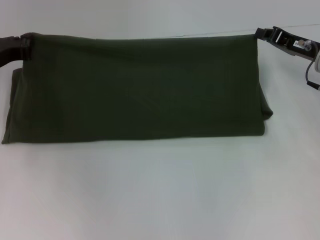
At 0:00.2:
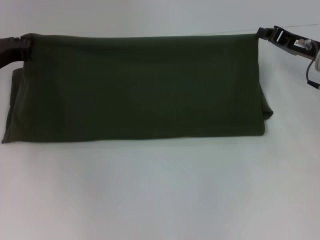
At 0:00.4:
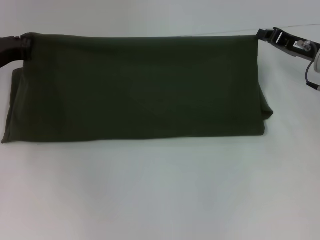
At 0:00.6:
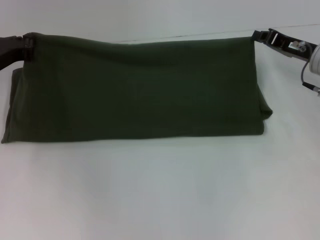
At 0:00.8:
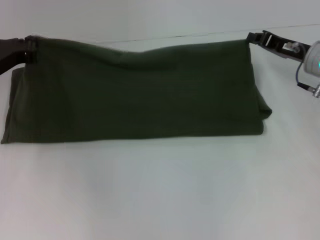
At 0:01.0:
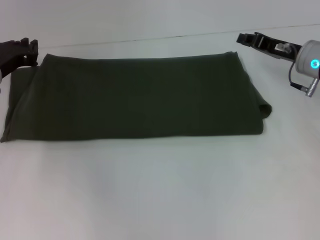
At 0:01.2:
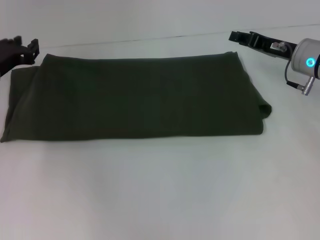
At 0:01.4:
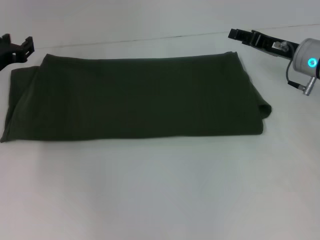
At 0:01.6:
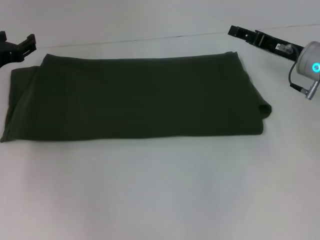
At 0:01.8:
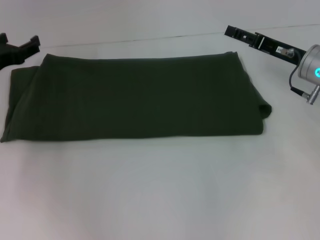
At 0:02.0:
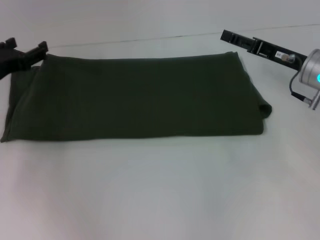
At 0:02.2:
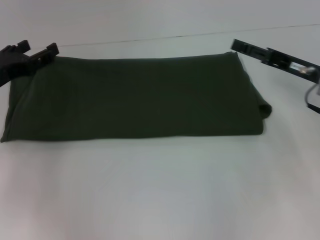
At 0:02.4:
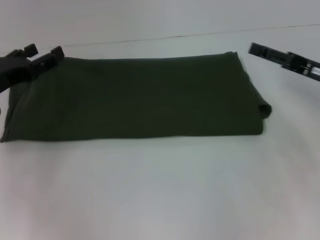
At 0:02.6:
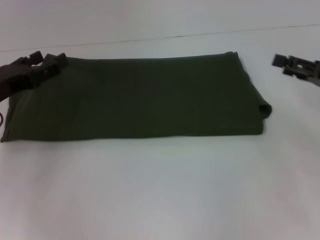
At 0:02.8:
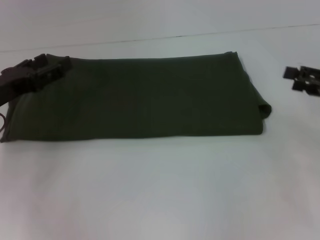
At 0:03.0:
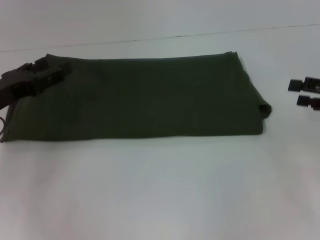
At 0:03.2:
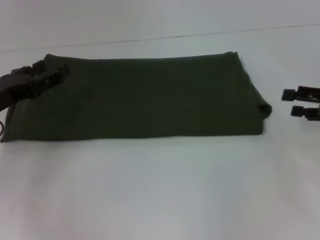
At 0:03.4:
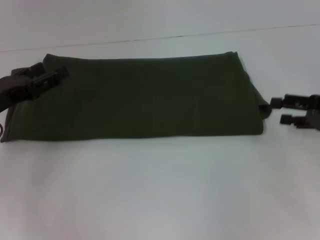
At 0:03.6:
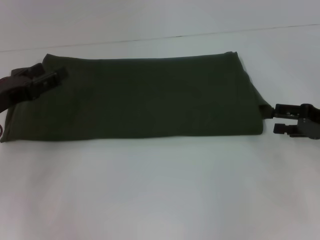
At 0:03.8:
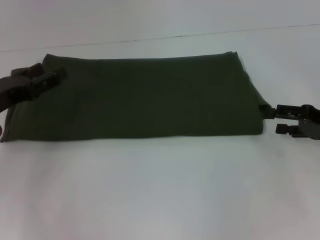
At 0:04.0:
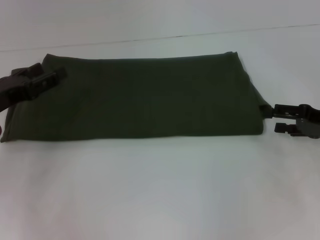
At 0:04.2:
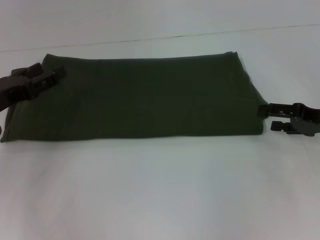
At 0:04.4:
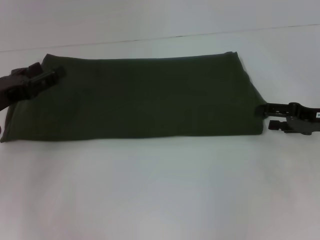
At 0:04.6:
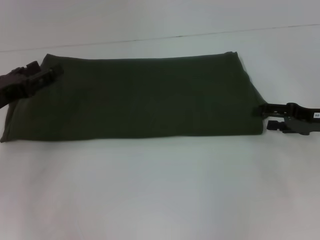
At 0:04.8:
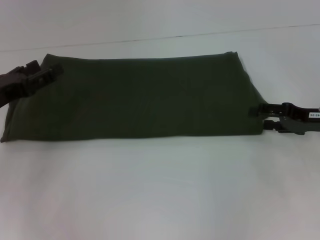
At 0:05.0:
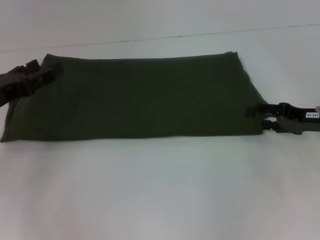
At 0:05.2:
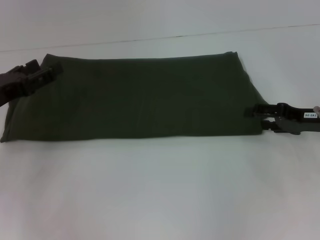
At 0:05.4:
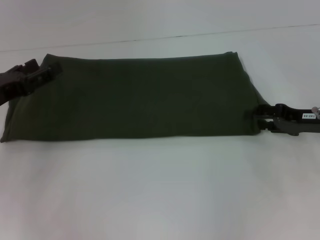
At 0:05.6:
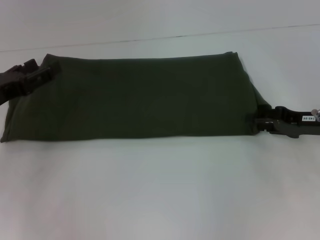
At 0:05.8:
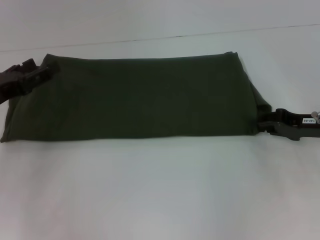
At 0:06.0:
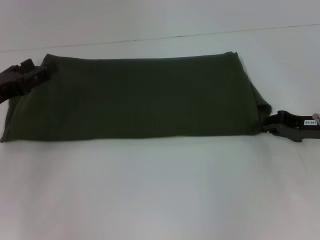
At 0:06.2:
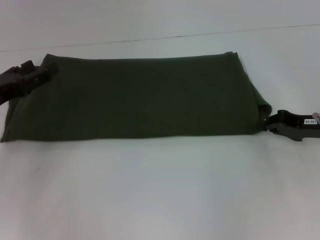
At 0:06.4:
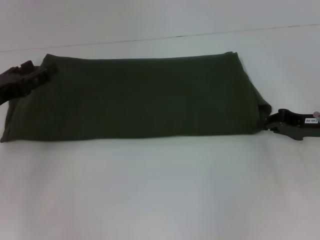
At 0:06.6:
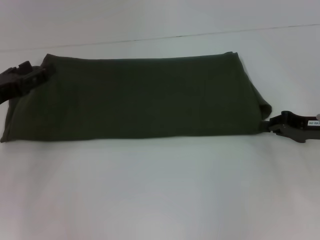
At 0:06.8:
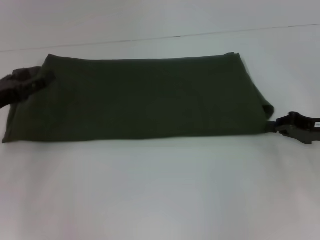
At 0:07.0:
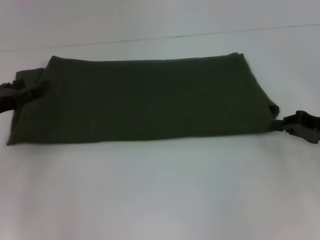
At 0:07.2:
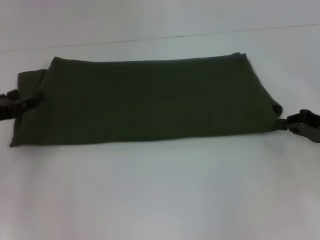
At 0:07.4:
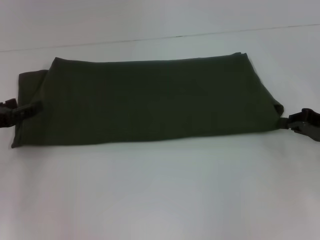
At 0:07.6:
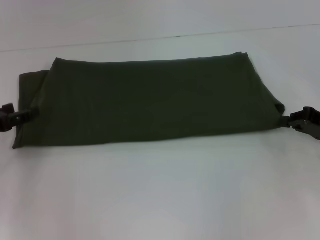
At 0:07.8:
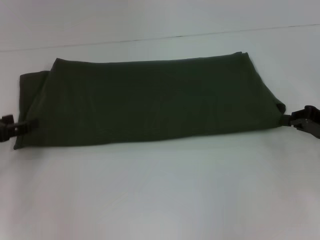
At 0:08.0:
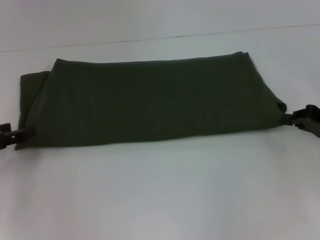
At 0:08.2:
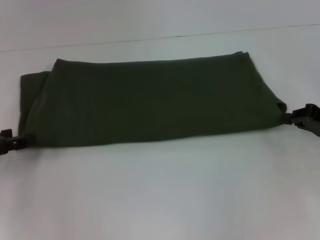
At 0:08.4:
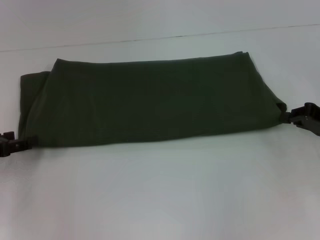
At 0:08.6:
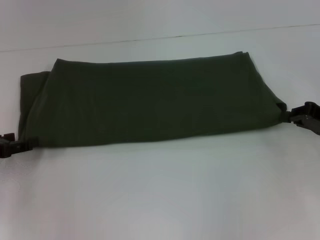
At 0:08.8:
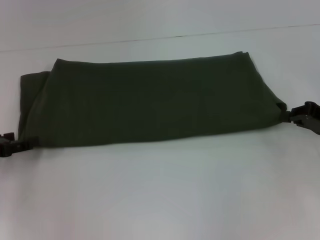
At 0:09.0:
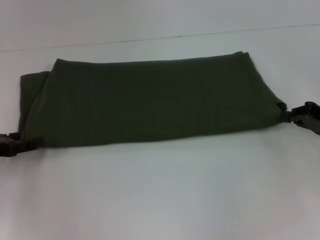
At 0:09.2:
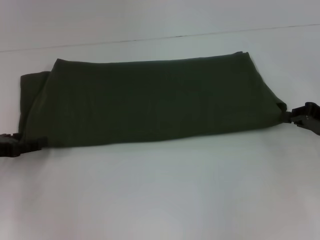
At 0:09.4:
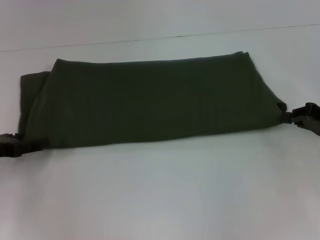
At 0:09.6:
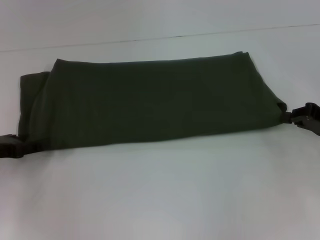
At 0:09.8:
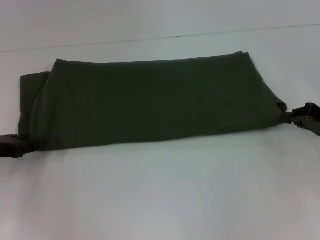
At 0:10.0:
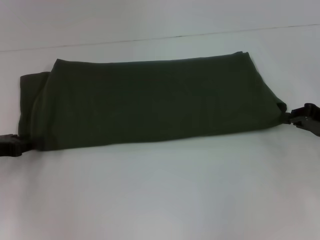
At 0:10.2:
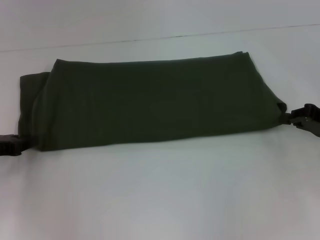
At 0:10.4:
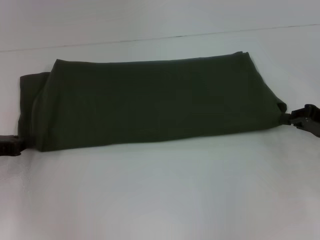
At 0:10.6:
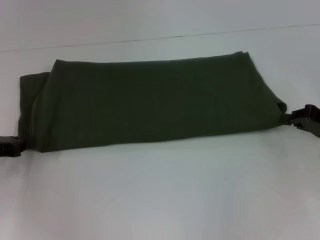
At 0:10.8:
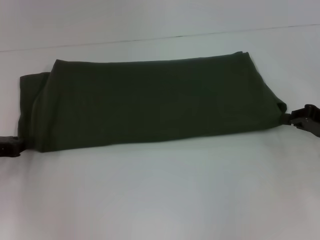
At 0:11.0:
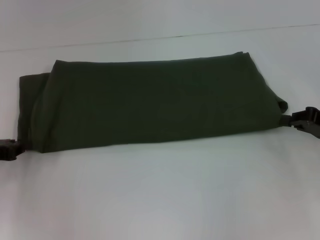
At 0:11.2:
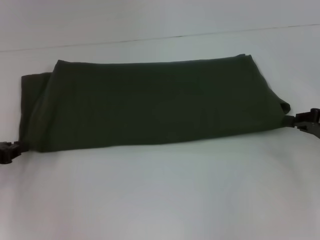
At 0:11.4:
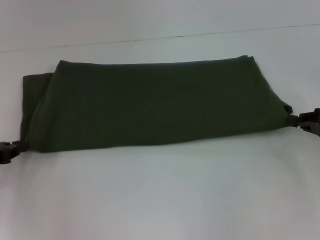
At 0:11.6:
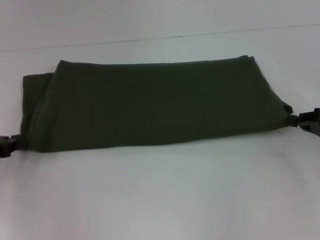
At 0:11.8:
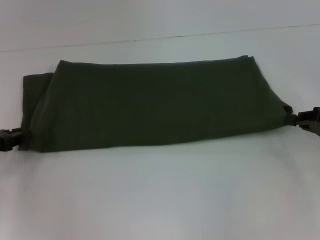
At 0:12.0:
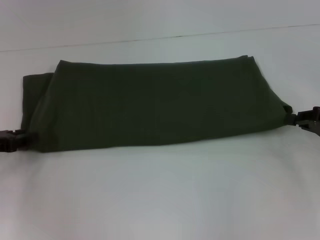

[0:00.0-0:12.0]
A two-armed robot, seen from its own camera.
Step, 0:00.0 to 0:02.0: Fold the clothes with your left hand.
Step, 0:00.0 to 0:02.0: Fold the clothes with your right hand.
0:00.0 to 0:01.6: The left gripper opens up. Meanwhile the right gripper opens its fingers.
0:01.6 to 0:03.0: The left gripper shifts approximately 10 cm backward; the right gripper moves backward and to the right, roughly 15 cm.
0:03.0 to 0:04.4: The right gripper shifts by some 5 cm.
0:04.4 to 0:06.0: The right gripper closes.
0:06.0 to 0:07.6: The right gripper closes up.
0:07.6 to 0:09.0: The grippers move only a little.
0:10.4 to 0:12.0: The grippers move only a little.

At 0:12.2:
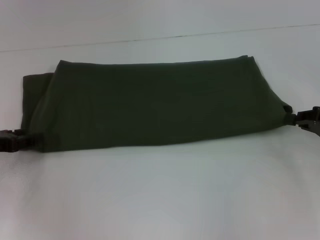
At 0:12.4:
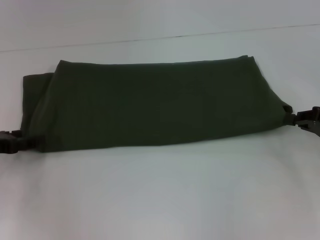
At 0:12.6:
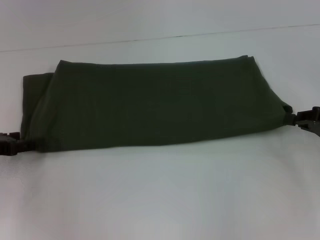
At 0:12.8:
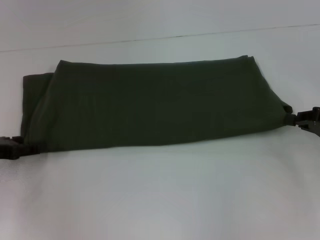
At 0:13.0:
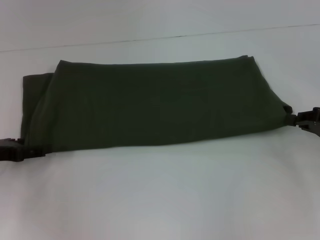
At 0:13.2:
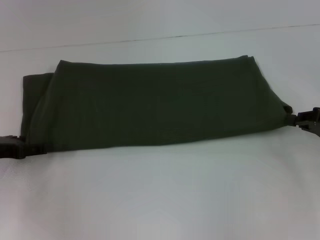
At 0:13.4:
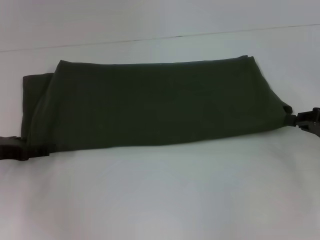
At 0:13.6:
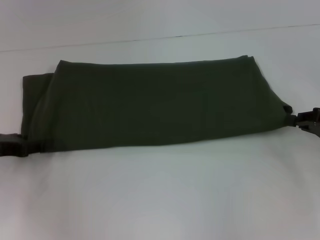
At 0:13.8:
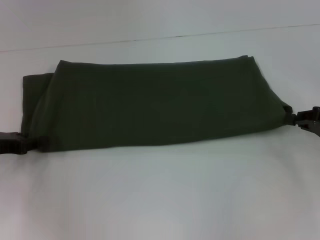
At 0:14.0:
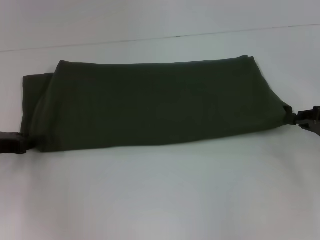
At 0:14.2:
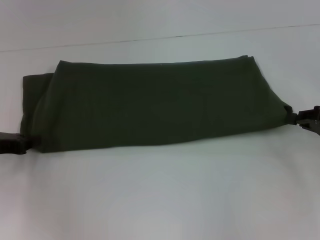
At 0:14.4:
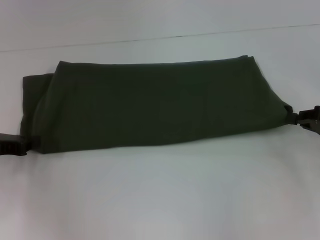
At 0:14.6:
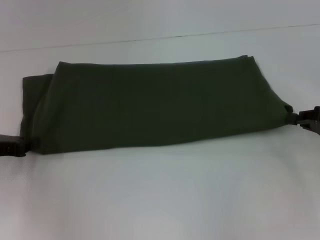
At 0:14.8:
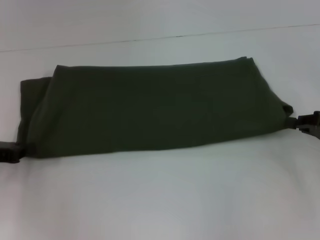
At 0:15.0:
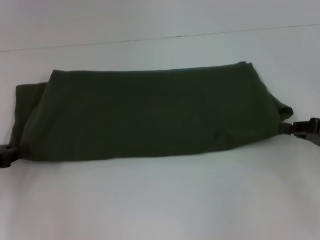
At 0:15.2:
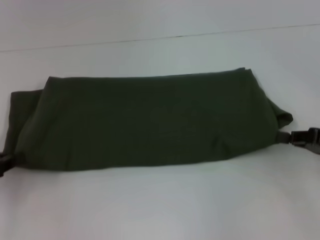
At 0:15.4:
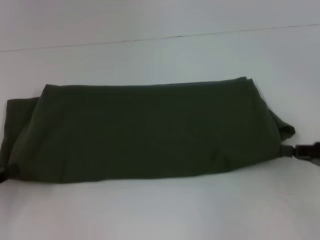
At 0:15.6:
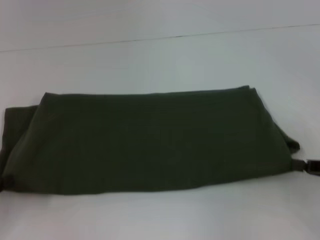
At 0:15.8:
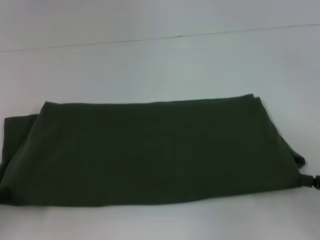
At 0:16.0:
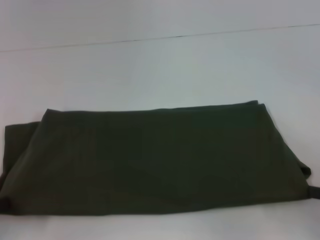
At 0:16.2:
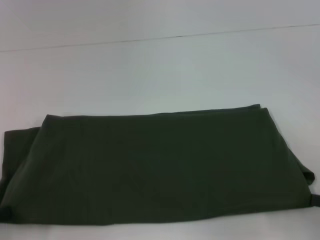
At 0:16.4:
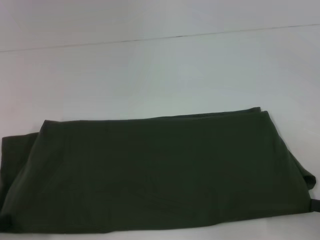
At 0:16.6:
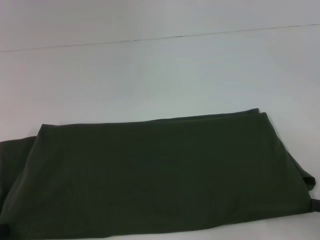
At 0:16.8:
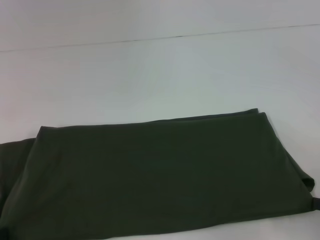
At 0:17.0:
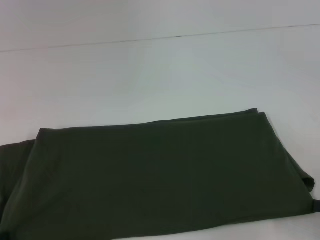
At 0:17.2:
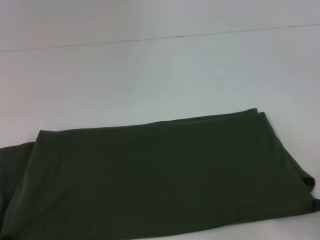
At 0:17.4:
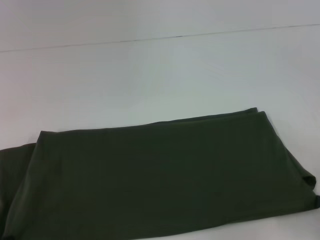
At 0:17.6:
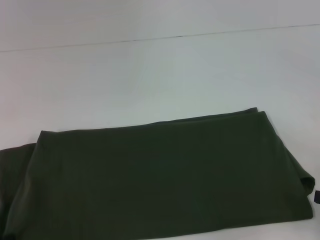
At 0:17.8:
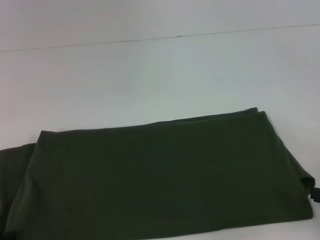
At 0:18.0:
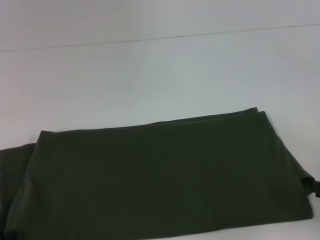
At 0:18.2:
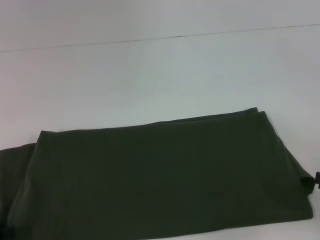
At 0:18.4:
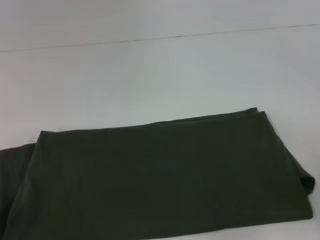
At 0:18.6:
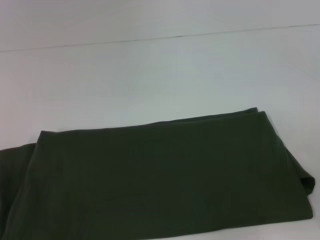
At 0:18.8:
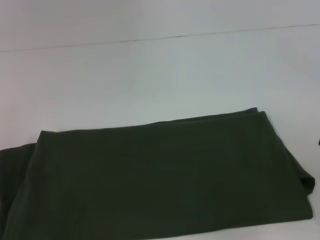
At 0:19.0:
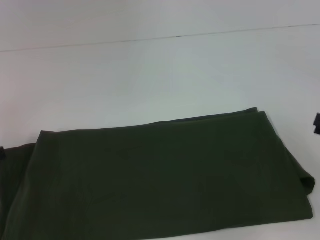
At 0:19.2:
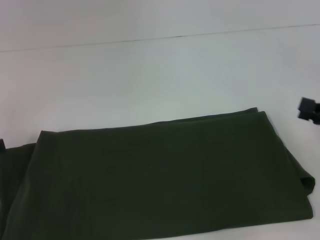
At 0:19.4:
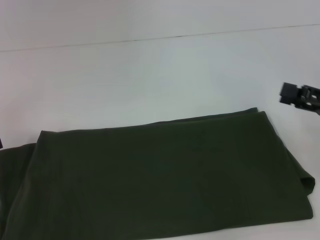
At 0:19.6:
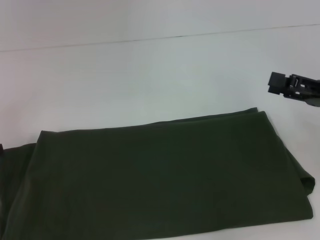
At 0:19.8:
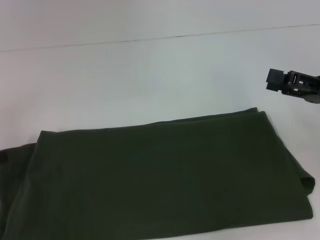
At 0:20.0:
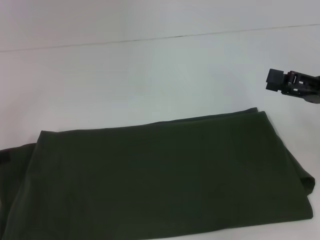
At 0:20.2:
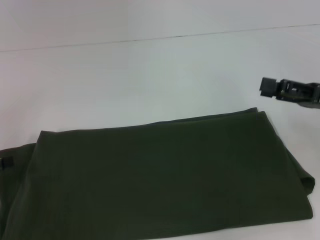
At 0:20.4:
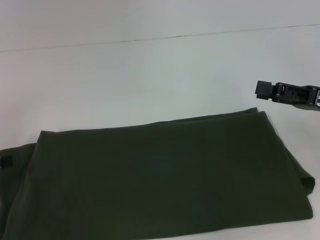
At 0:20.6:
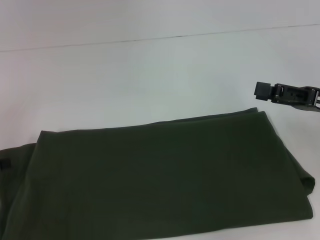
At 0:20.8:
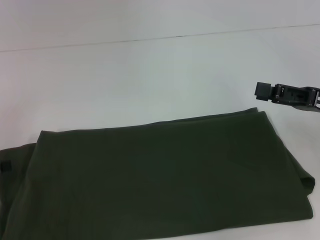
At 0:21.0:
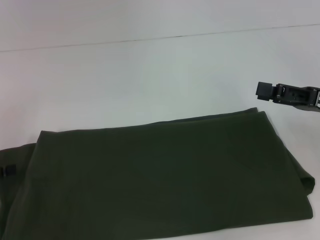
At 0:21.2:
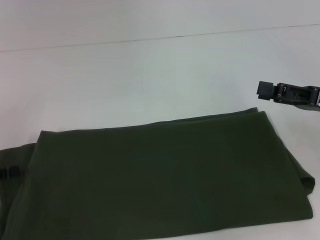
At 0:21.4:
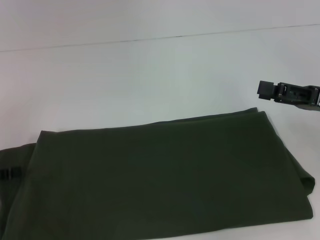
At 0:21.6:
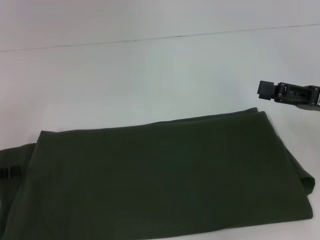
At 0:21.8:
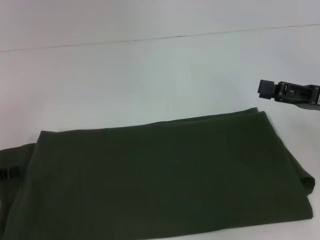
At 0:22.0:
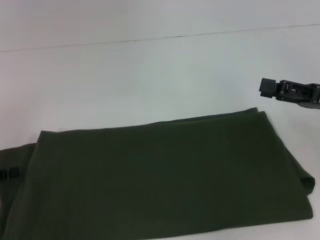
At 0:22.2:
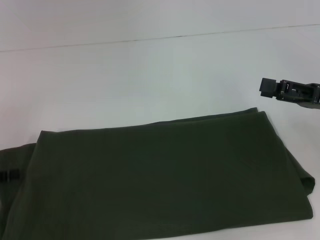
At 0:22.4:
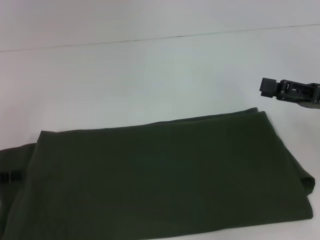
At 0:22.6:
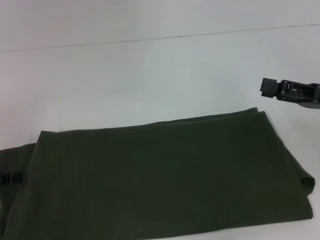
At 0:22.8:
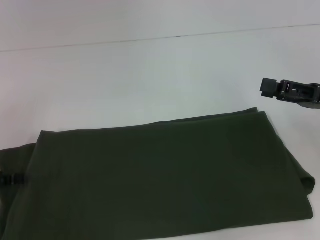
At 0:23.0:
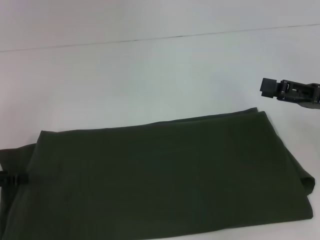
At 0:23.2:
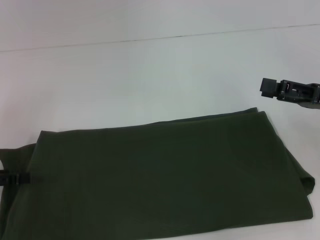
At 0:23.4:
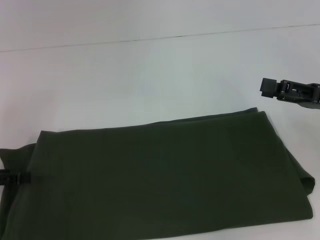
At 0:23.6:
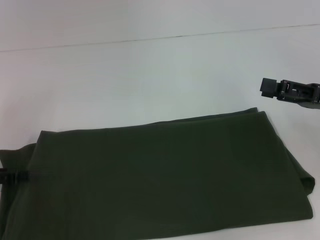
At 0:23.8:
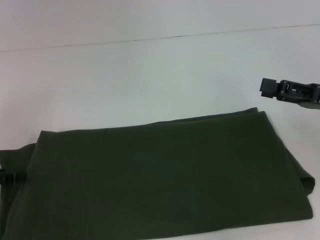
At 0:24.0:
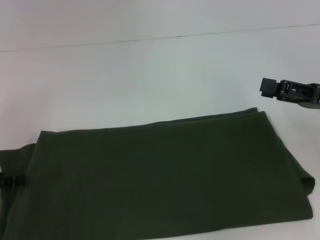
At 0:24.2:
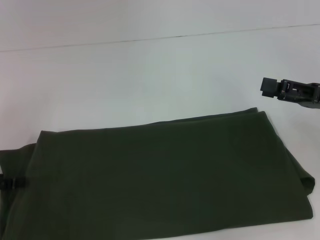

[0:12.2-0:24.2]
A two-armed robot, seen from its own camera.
Step, 0:12.2 to 0:18.8: Pull the clothes with your left hand.
Step, 0:12.2 to 0:18.8: Pull the clothes with your right hand.
0:13.8 to 0:15.2: The left gripper changes place by roughly 5 cm, and closes its fingers.
0:15.2 to 0:16.6: The two grippers go roughly 10 cm backward.
0:16.6 to 0:18.2: The right gripper opens up.
0:18.2 to 0:19.8: The right gripper shifts roughly 15 cm forward, to the left and upward.
0:19.8 to 0:21.2: There are only small adjustments of the grippers.
0:21.2 to 0:22.6: The two grippers keep their place.
0:22.6 to 0:24.2: Both grippers stay put.
